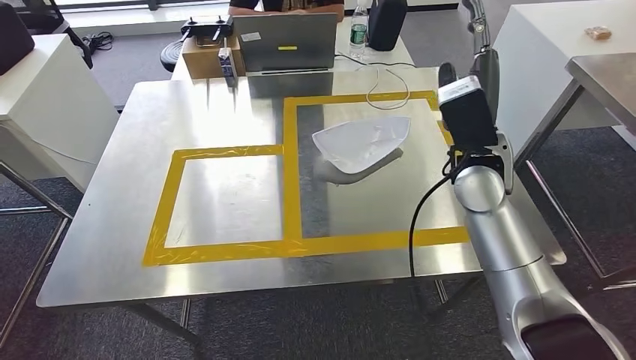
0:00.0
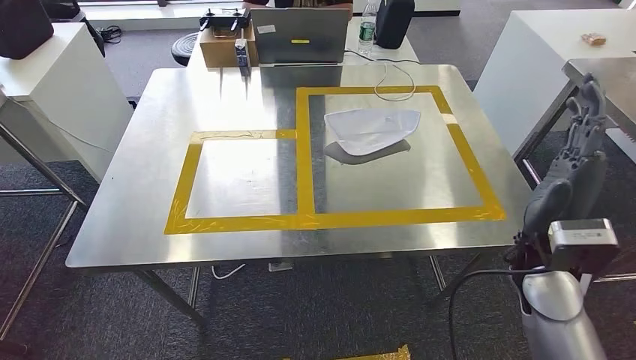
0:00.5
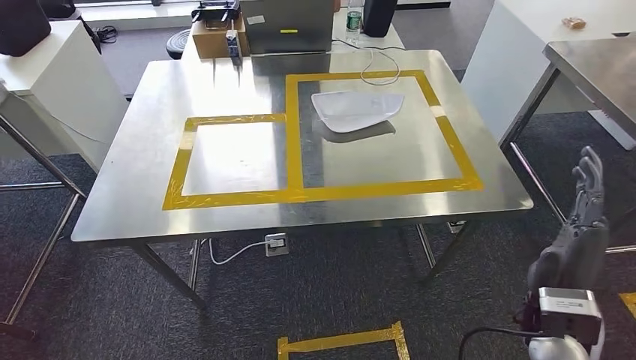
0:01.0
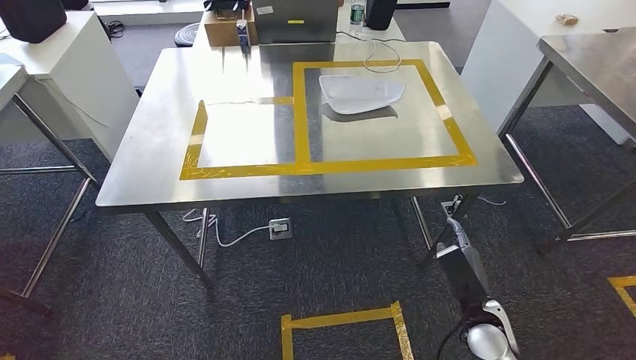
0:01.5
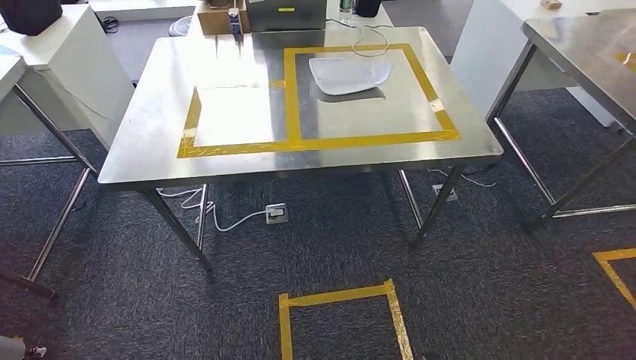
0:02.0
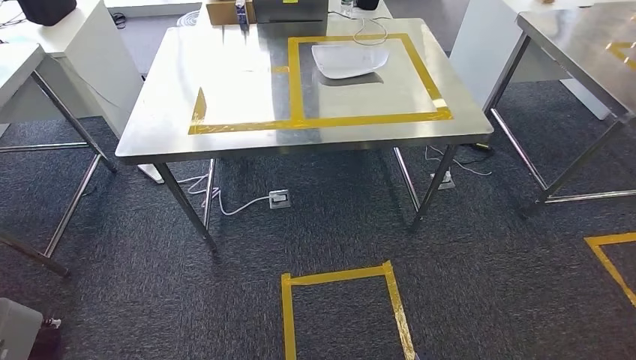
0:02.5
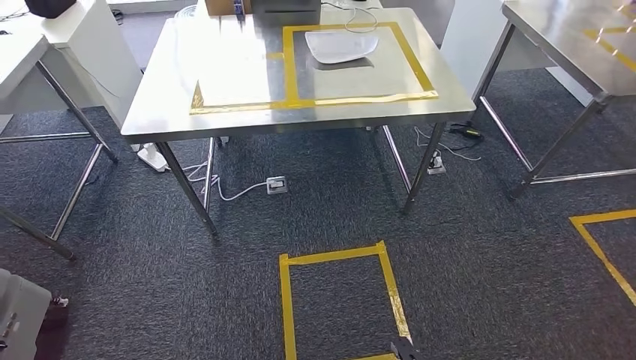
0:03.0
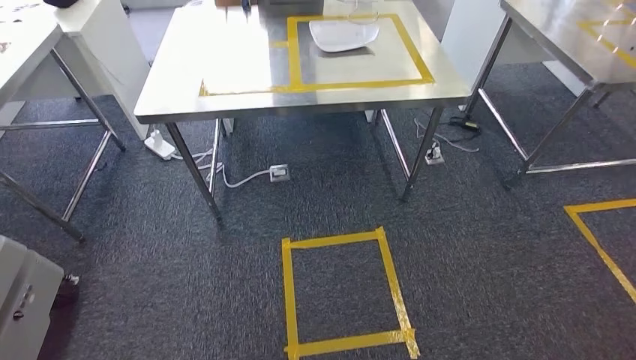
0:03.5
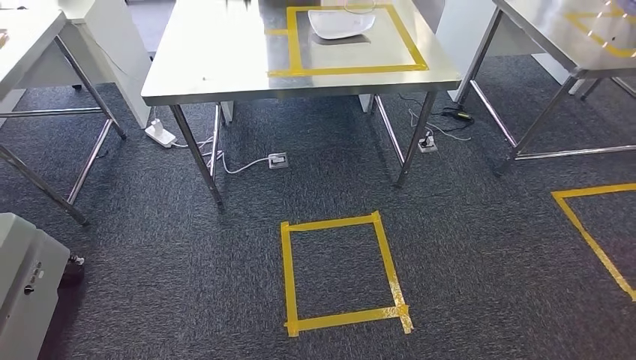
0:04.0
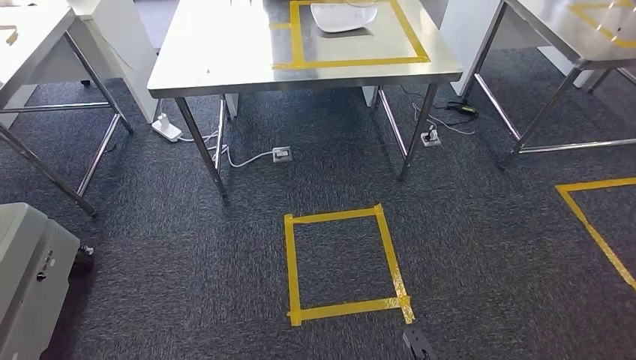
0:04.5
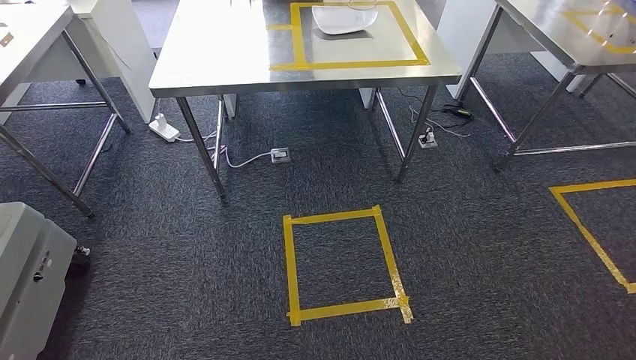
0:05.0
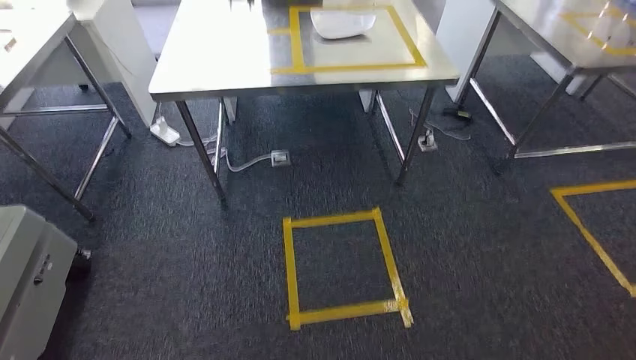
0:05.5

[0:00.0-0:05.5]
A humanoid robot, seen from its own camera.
Step, 0:00.5 to 0:05.5: Return to the initial position at the workbench.

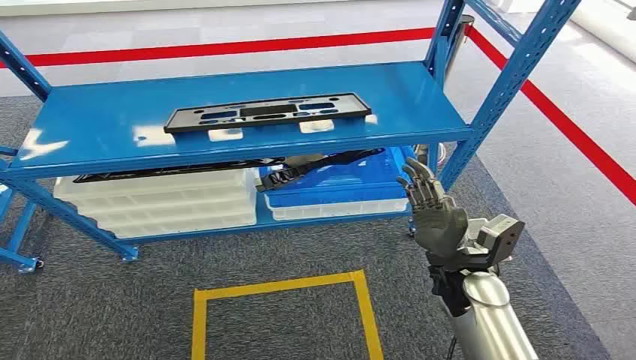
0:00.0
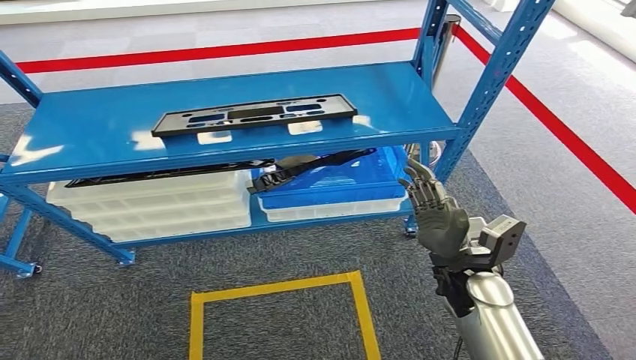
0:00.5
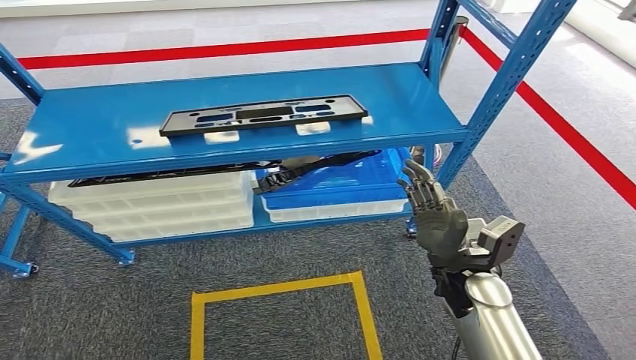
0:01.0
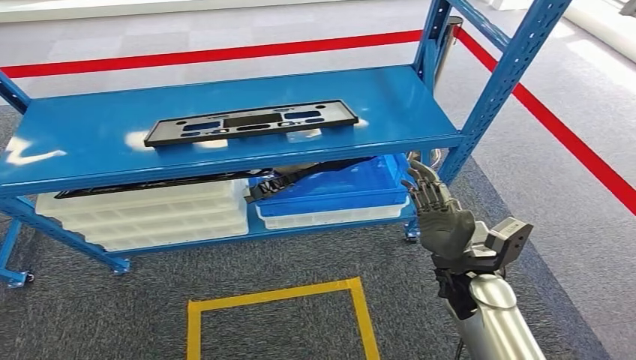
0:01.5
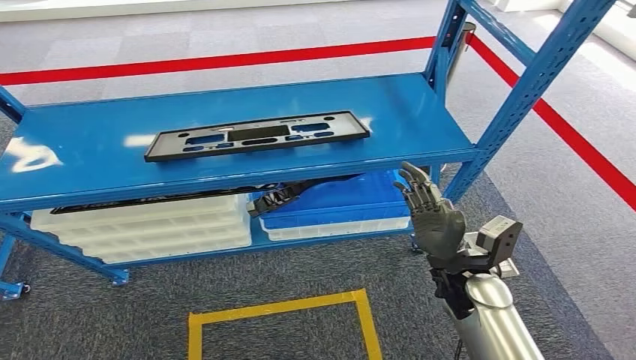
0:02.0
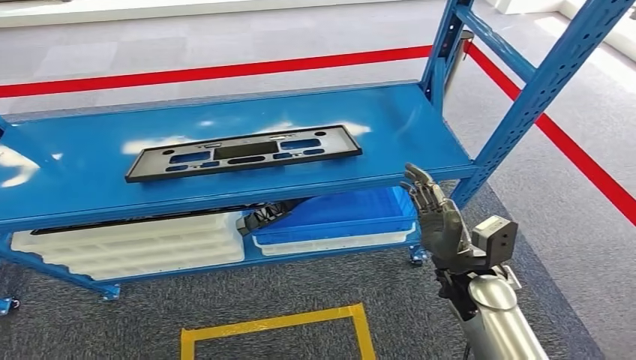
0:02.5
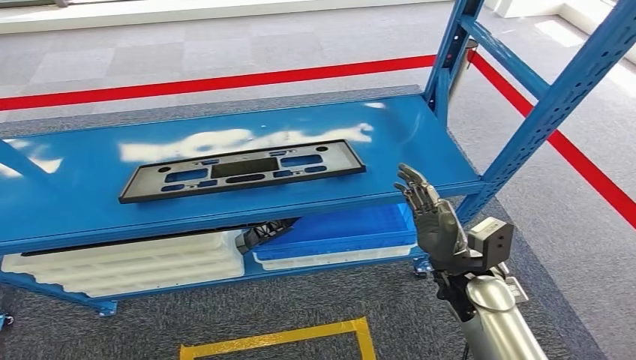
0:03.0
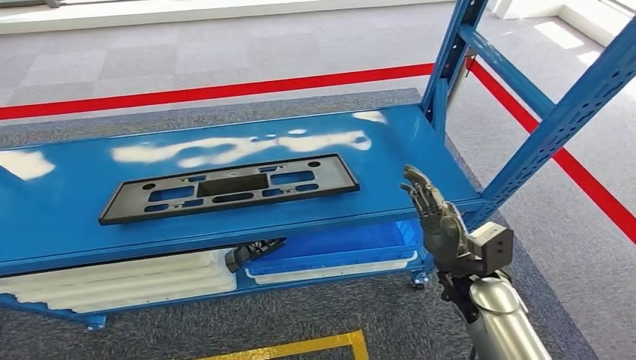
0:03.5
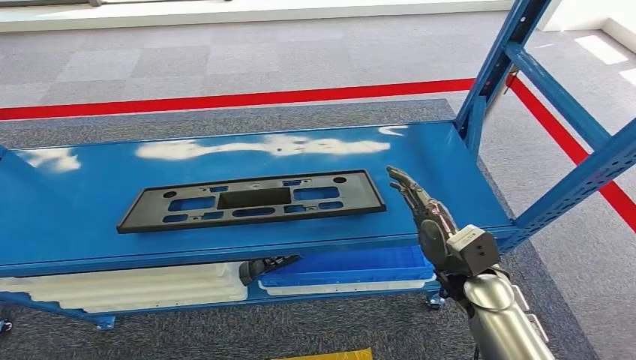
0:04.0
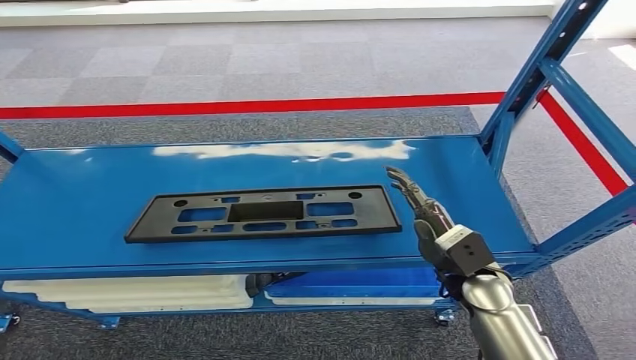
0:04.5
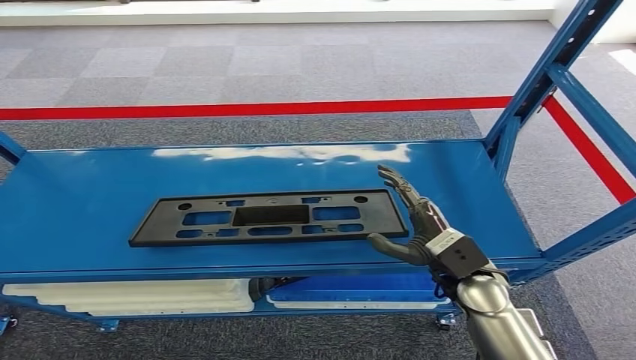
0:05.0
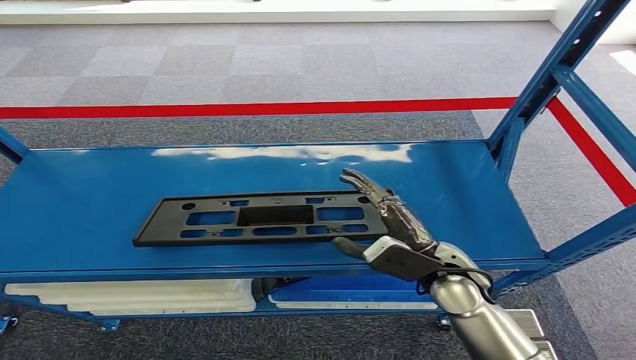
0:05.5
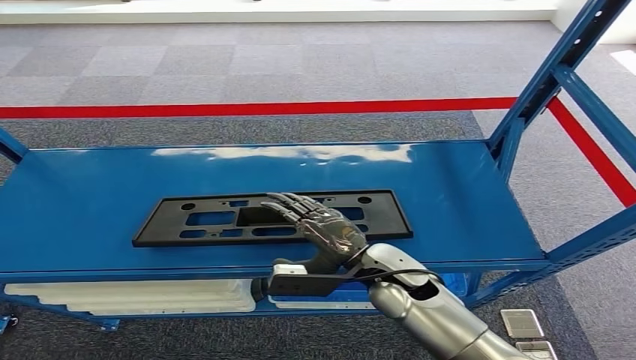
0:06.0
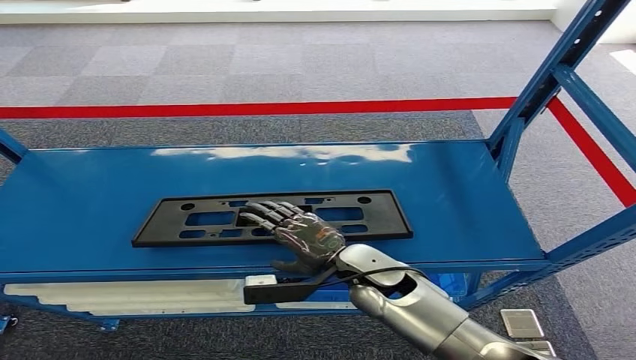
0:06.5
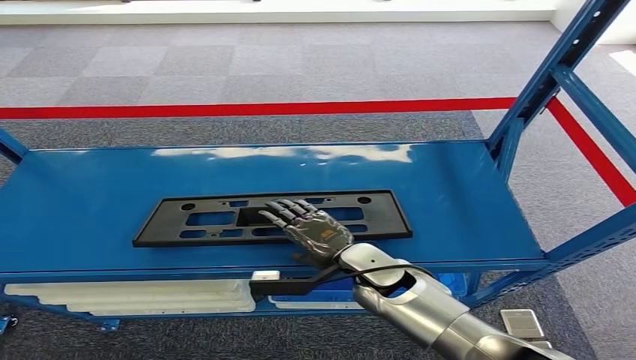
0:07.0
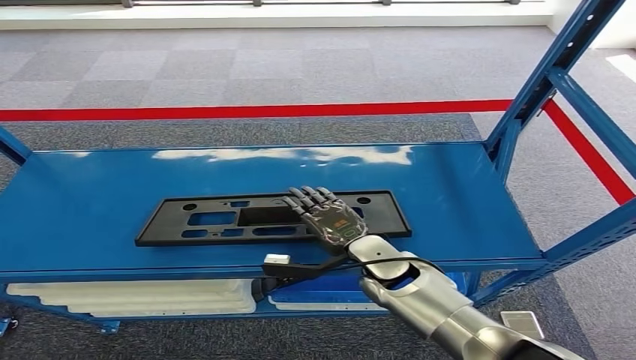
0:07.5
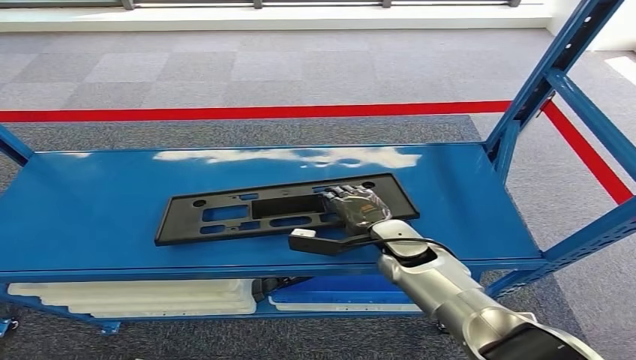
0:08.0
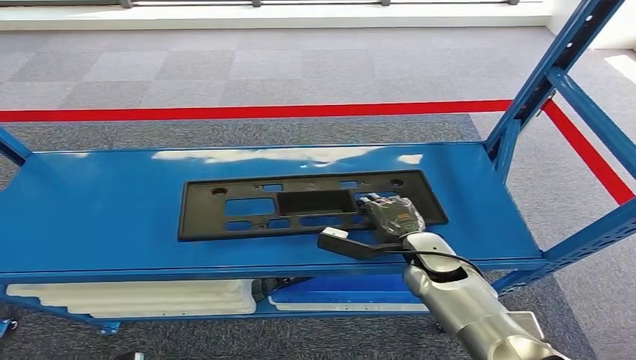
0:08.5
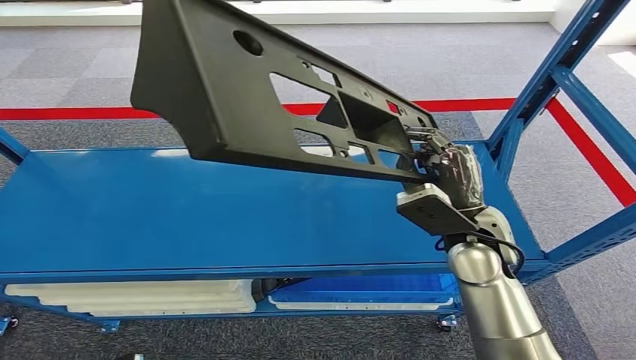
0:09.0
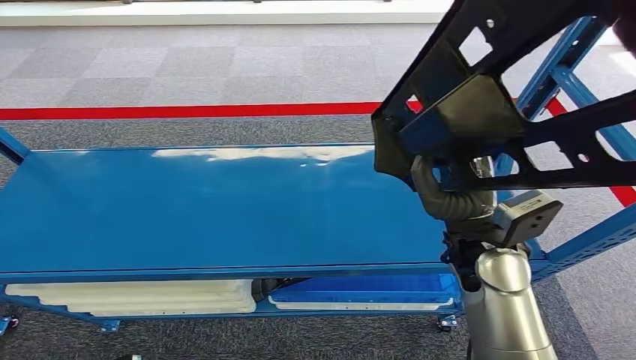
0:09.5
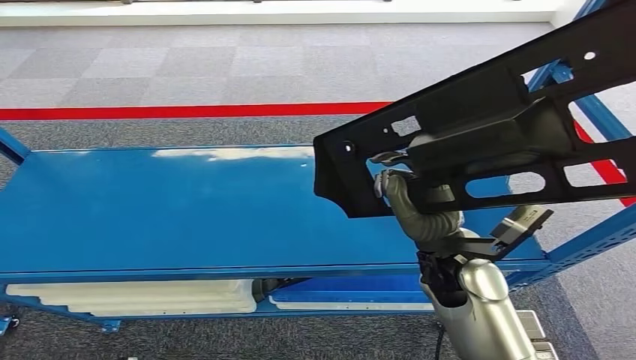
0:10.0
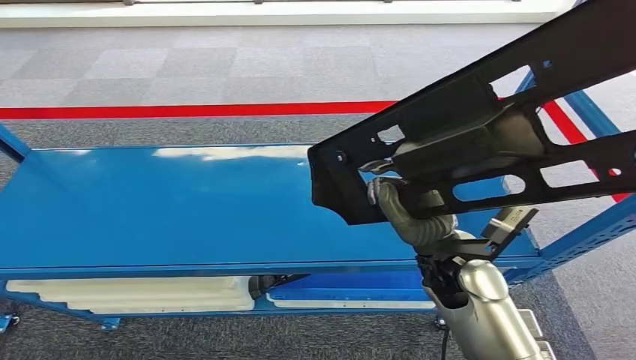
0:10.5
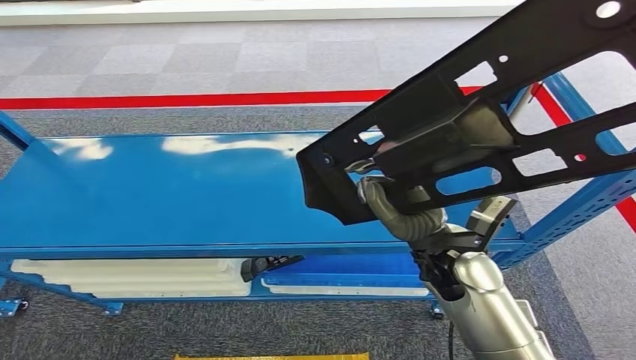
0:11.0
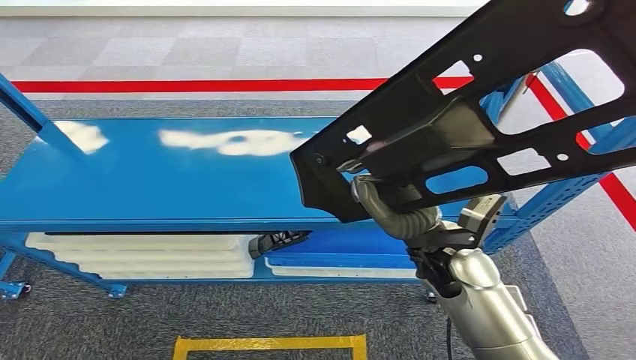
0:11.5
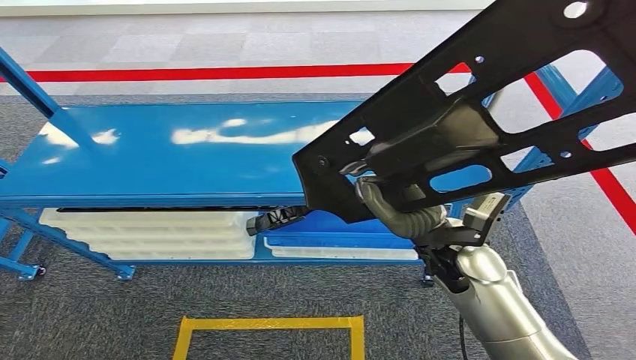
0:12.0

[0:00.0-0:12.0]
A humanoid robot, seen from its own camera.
Step, 0:00.0 to 0:08.0: Grasp the gray part with right gripper.

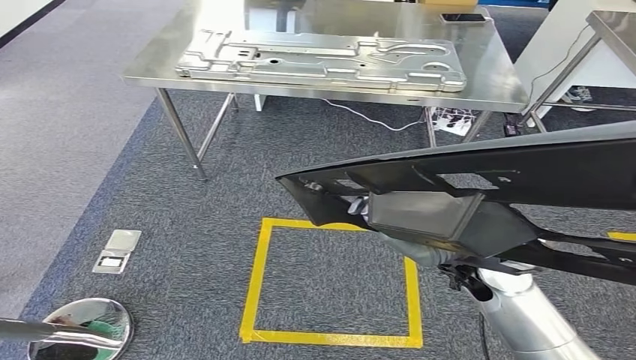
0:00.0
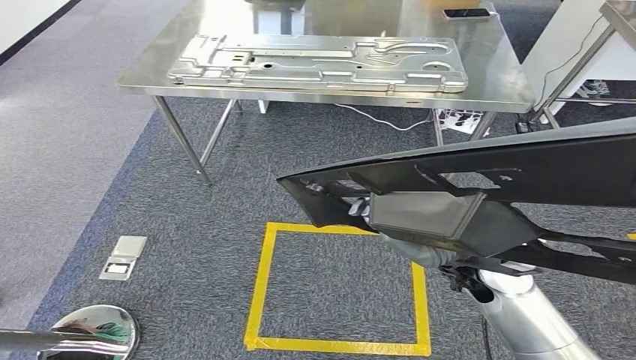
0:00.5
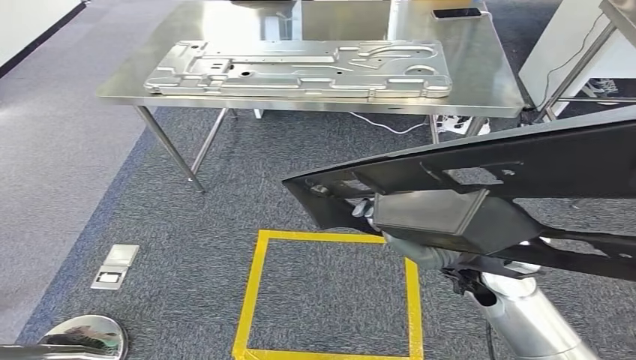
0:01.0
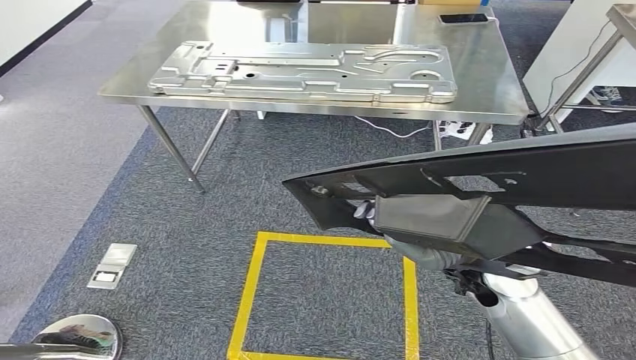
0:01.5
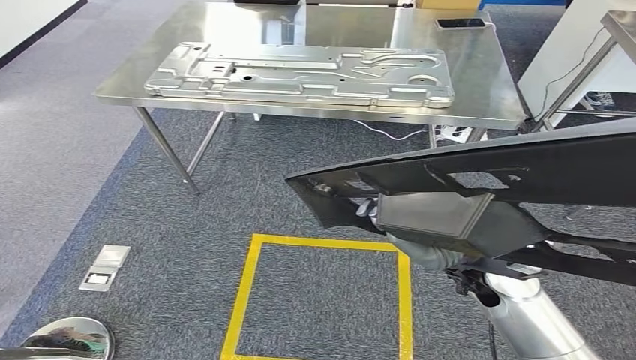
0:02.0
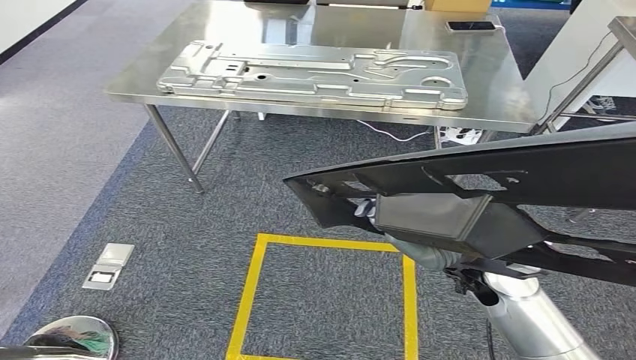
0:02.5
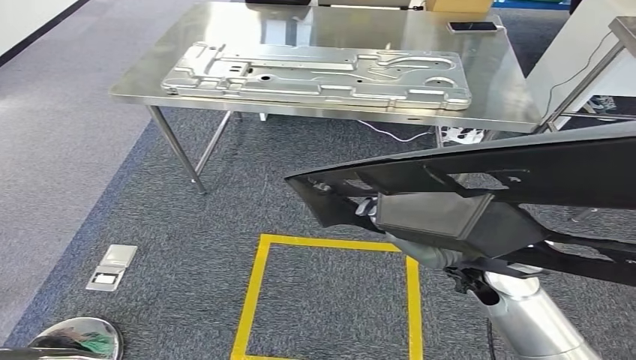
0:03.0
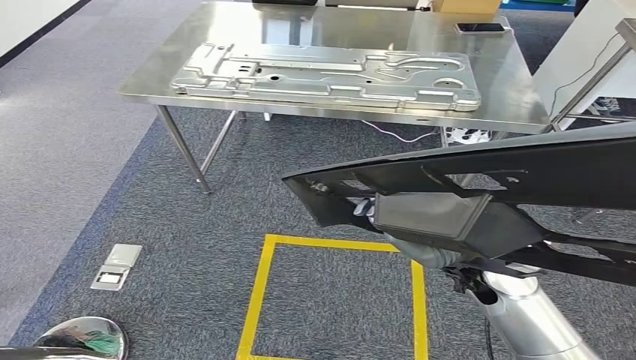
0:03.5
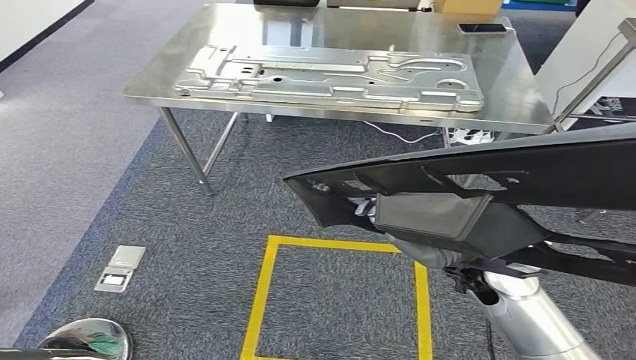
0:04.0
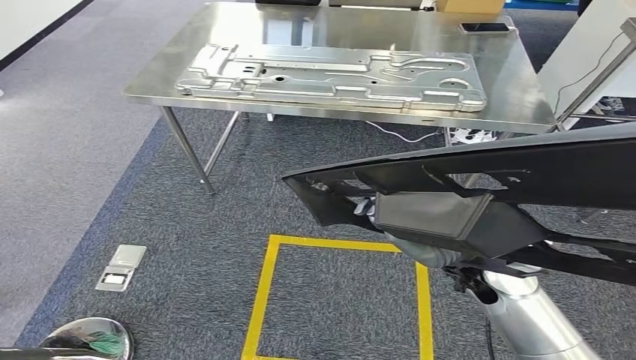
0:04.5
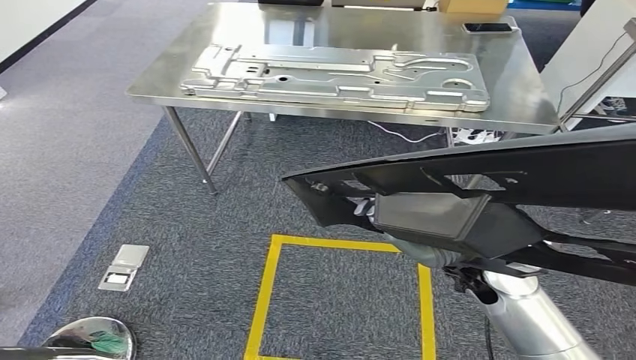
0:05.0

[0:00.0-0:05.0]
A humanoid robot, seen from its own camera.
0:02.5 to 0:05.0: The two hands keep their place.
